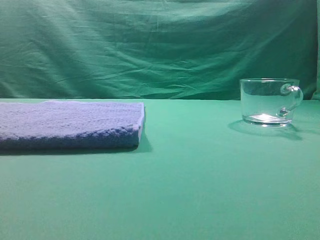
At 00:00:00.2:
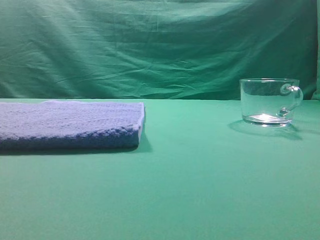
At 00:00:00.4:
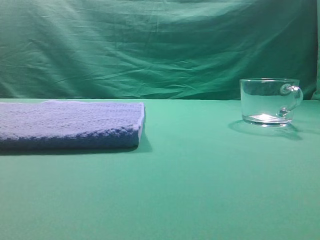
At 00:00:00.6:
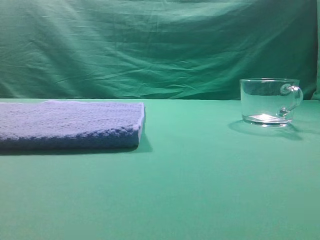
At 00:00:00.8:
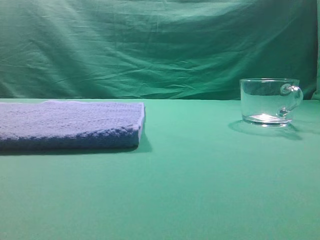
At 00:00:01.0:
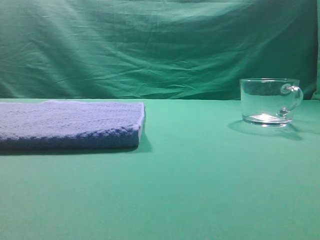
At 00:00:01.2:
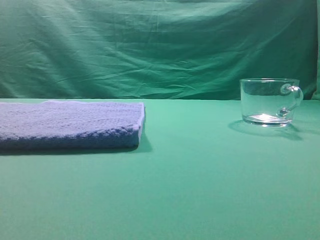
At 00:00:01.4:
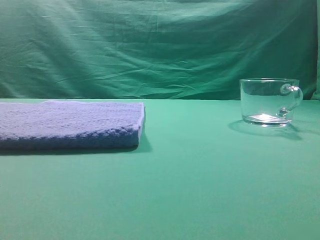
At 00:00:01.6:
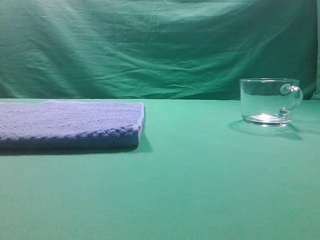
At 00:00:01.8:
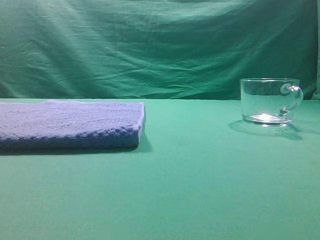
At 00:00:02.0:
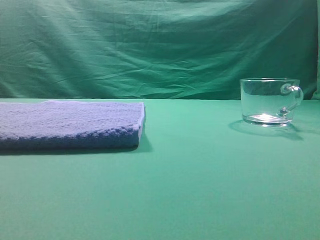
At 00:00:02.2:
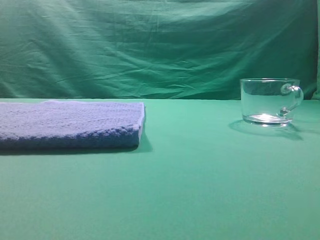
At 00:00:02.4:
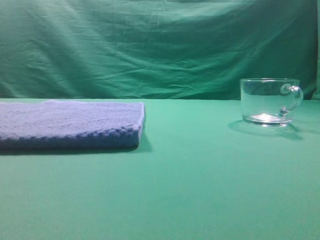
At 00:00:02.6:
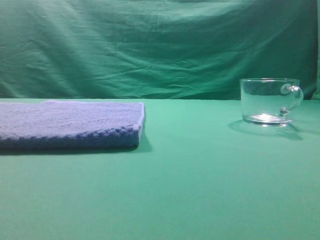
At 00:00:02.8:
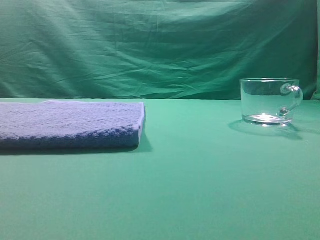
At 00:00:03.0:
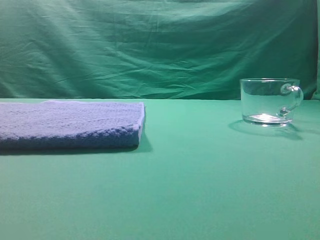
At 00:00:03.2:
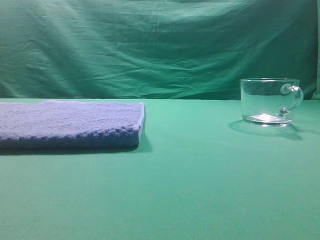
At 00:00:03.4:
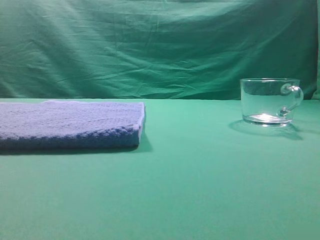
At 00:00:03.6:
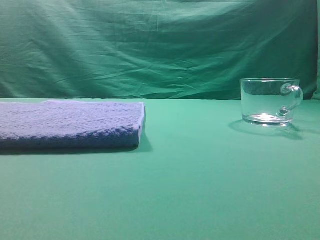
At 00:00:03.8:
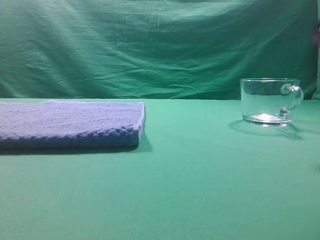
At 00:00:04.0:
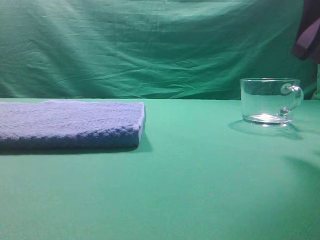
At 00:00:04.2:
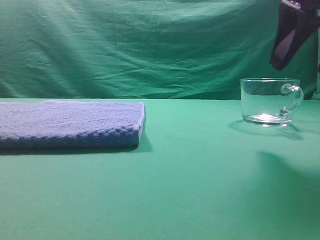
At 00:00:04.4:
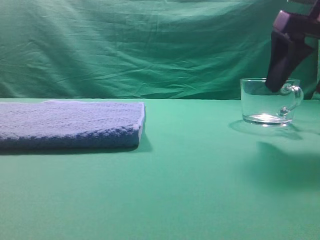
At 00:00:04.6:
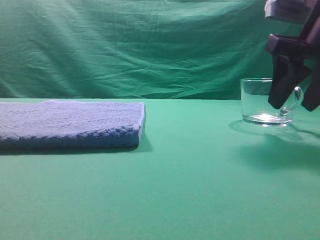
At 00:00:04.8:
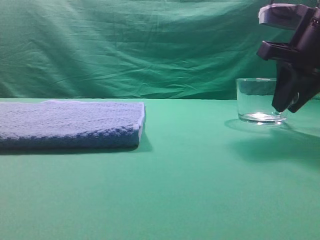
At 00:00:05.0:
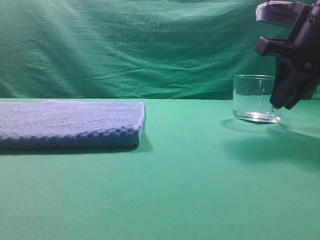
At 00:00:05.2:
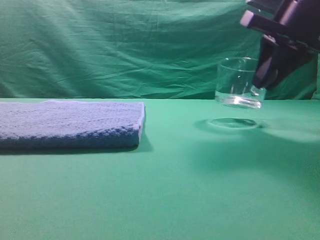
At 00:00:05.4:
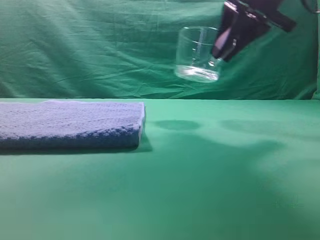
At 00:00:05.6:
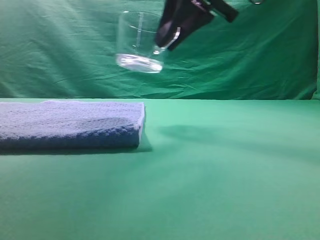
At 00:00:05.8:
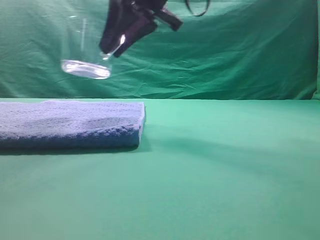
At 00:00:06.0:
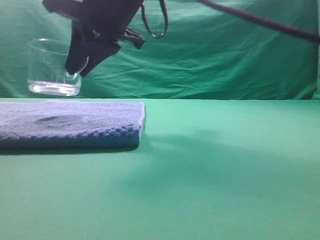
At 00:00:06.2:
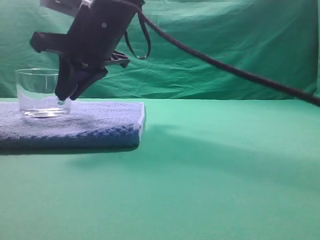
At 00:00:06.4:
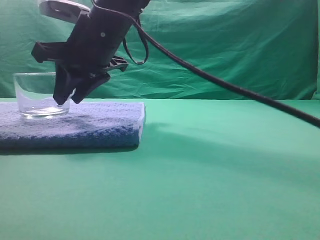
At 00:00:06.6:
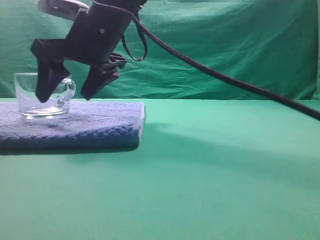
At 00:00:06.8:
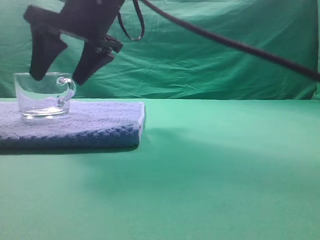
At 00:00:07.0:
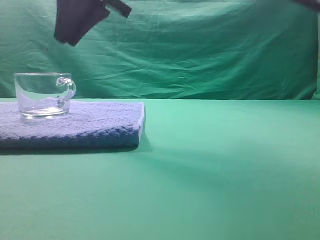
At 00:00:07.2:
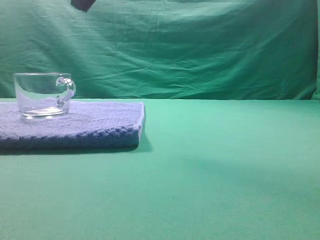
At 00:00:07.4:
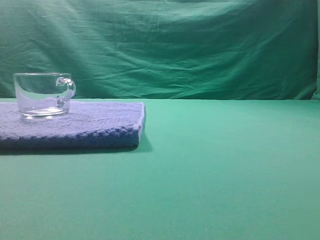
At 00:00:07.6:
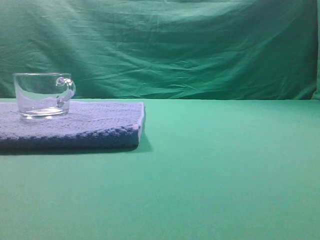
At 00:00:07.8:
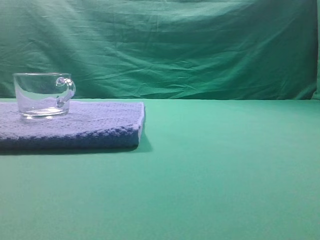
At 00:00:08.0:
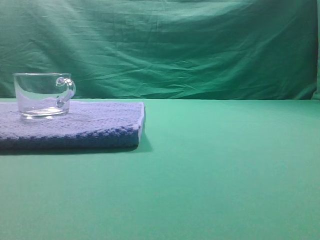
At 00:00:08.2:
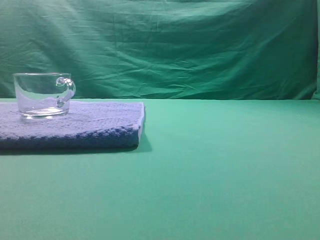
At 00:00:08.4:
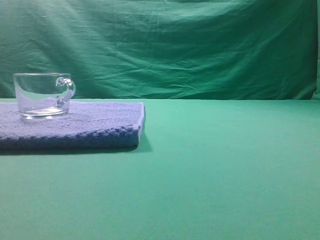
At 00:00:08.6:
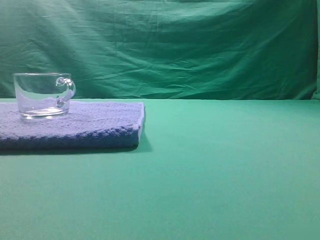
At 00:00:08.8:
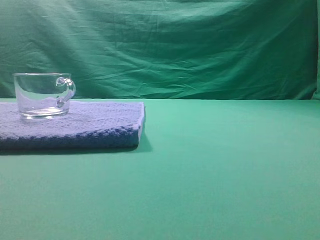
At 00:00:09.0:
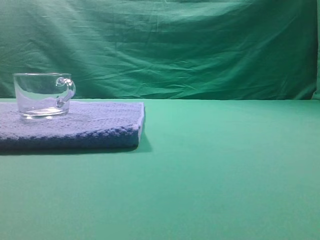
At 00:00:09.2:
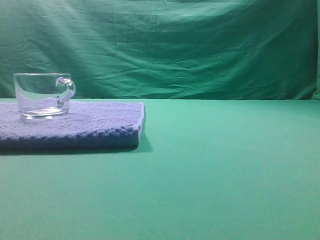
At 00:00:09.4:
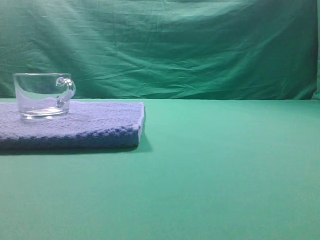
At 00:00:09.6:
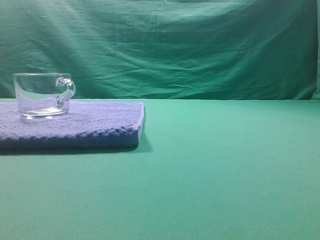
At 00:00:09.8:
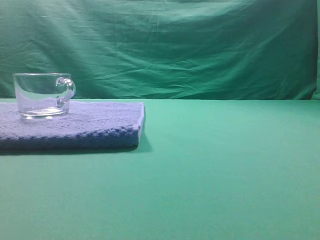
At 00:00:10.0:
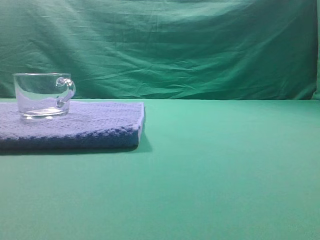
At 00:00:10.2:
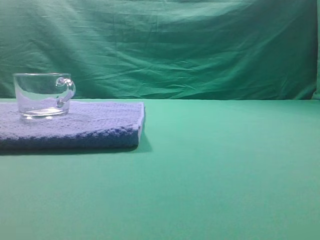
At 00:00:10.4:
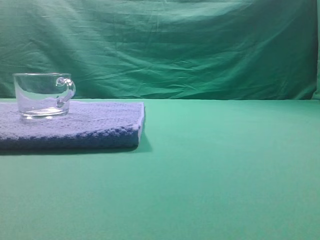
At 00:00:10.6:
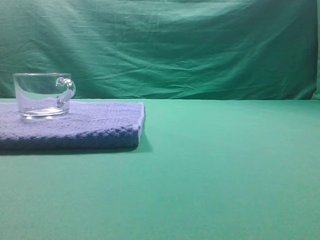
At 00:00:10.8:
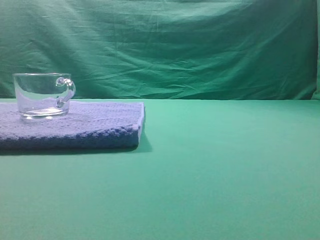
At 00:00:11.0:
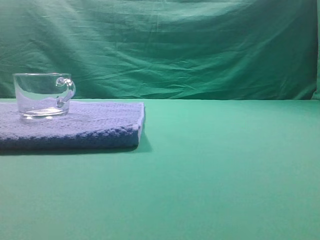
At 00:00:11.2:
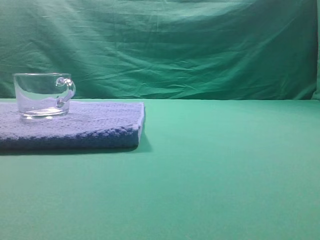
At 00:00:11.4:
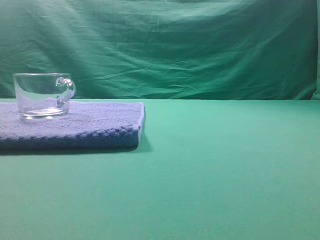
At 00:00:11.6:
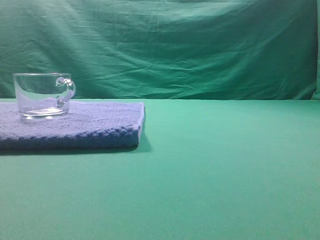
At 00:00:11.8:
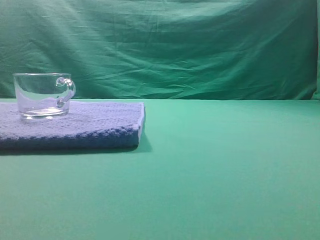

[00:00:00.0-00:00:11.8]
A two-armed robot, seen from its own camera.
Task of the whole recording: grasp the transparent glass cup and place it within the blue towel.
Step, 00:00:00.0 to 00:00:05.2: Grasp the transparent glass cup.
Step, 00:00:05.4 to 00:00:06.8: Place the glass cup on the blue zone.
